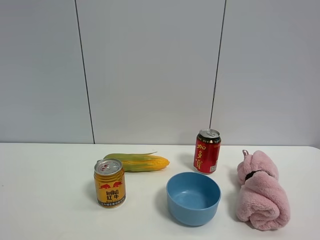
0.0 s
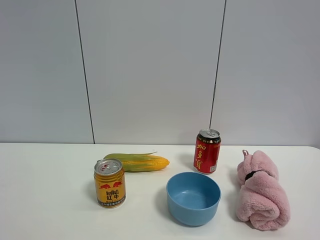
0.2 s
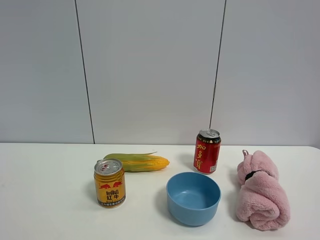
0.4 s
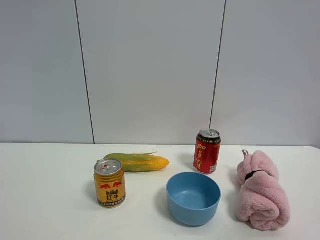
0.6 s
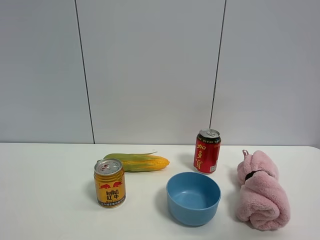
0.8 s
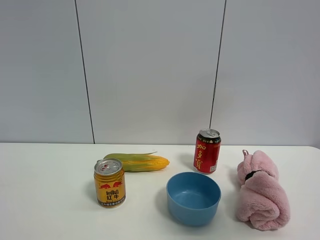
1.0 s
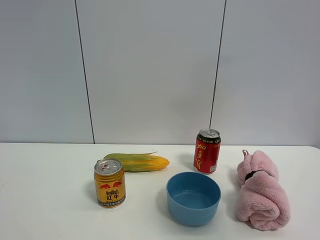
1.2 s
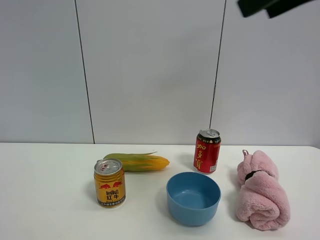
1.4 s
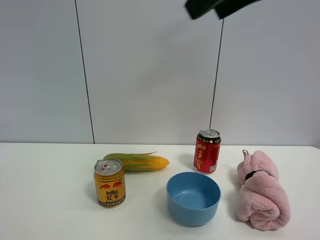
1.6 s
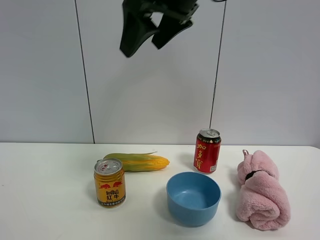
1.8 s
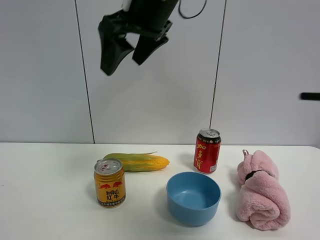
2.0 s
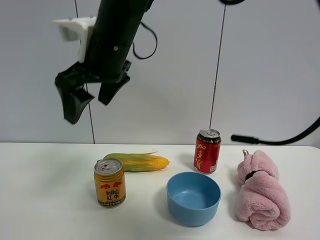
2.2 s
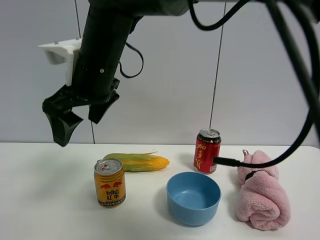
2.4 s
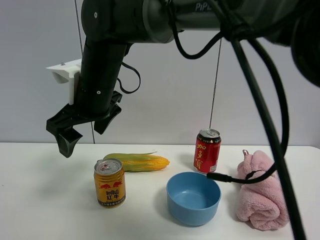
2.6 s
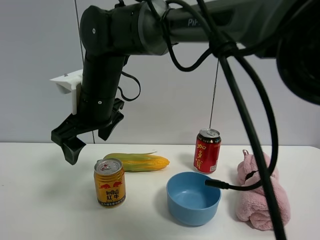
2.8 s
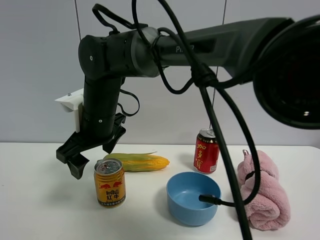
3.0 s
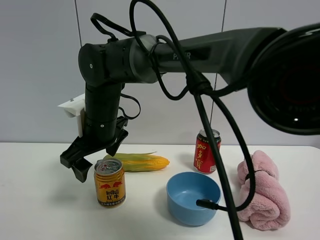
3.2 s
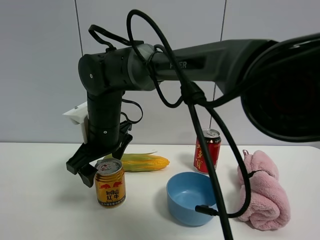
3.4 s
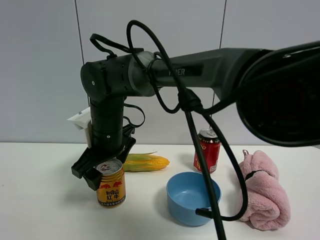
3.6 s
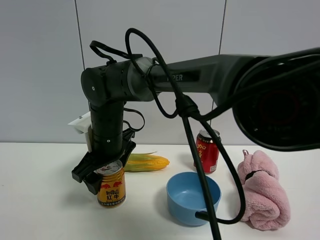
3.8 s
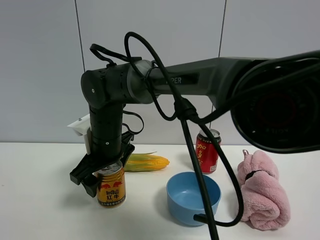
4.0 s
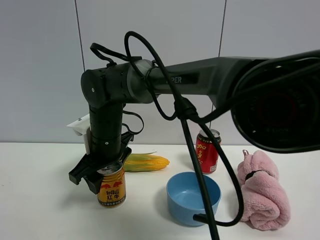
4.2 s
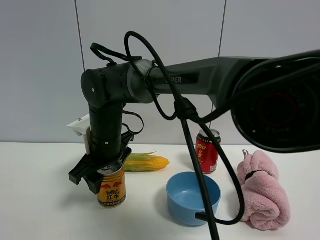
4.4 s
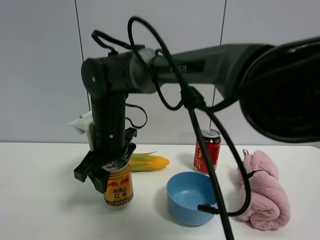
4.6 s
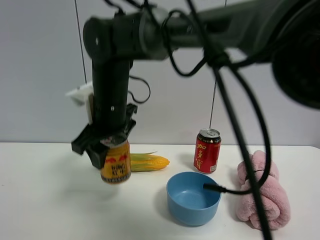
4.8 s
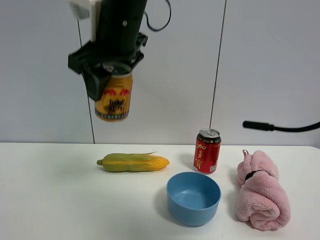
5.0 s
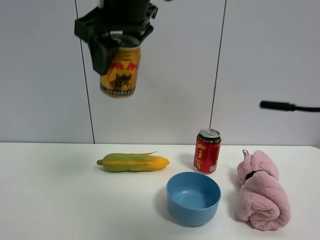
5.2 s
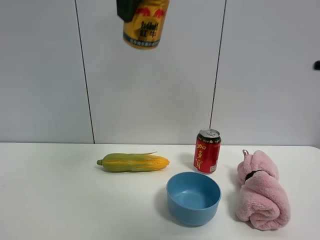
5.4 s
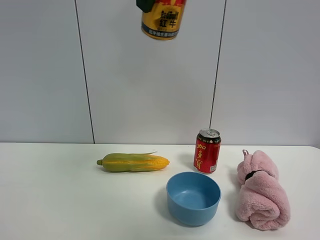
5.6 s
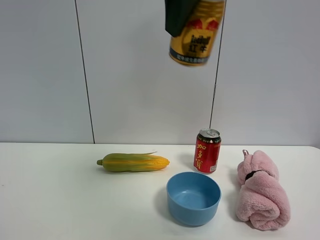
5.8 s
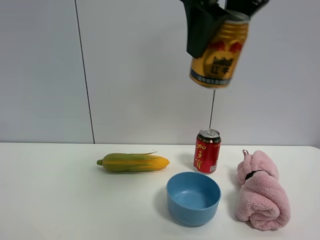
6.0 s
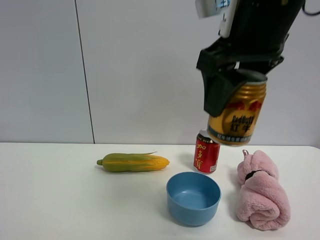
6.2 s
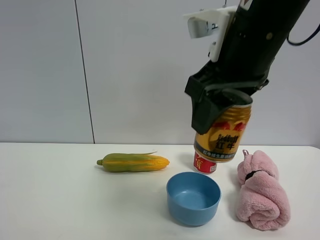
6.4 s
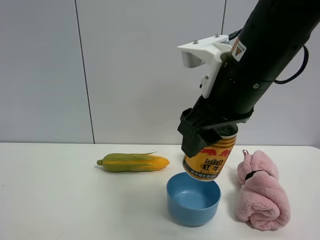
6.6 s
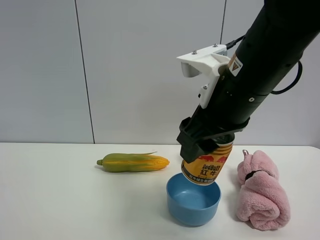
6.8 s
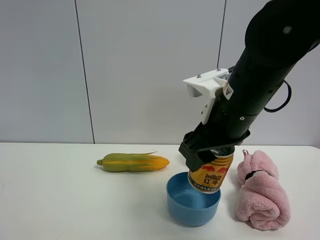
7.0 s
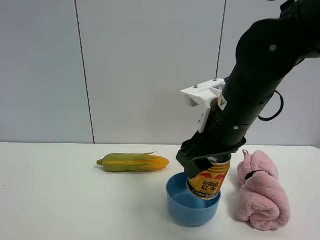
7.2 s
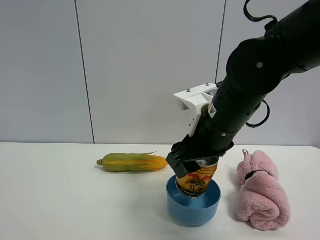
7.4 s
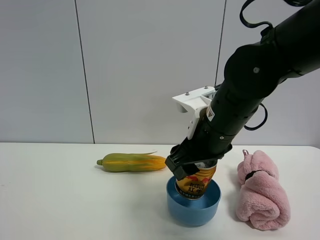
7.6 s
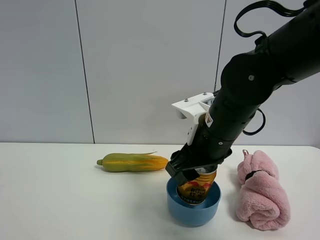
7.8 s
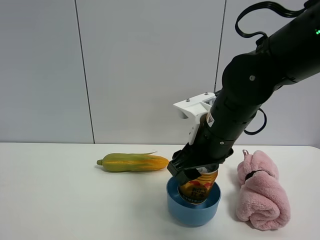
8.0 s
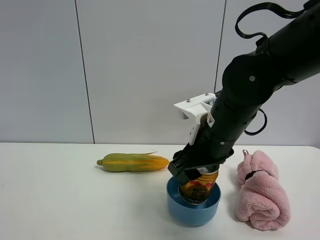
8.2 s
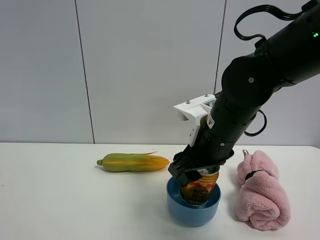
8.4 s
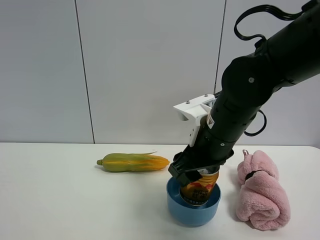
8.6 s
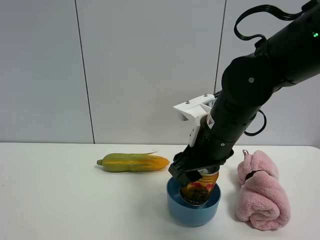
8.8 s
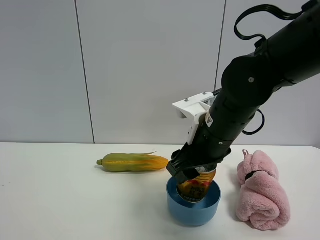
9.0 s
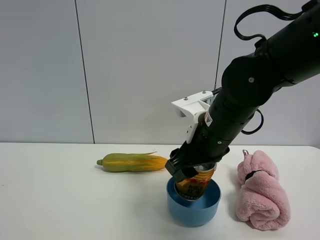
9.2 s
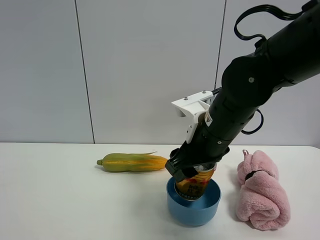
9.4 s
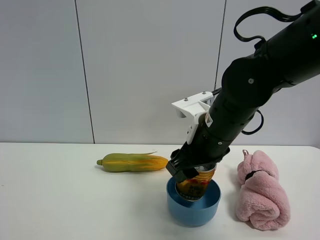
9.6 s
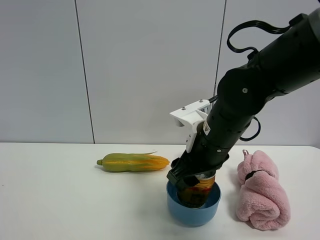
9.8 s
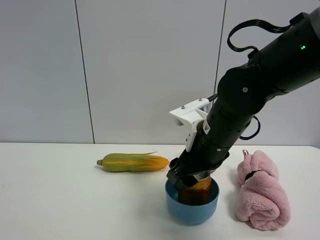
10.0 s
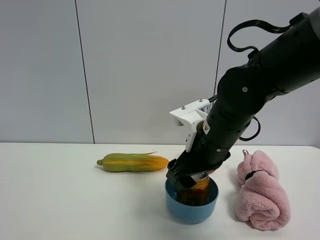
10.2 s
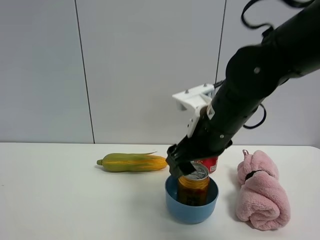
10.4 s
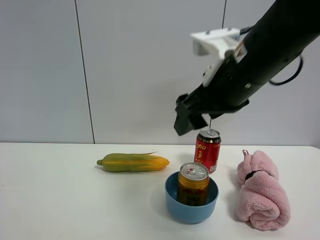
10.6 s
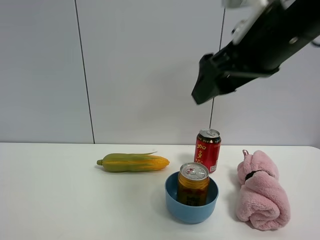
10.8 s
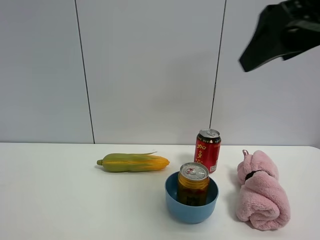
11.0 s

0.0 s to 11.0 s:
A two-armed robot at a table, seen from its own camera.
Task of the whole recording: the gripper move the object.
Step, 0.0 to 4.2 s: Grasp the red bull with the right gripper.
0.0 to 1.6 s: The right gripper is displaced forward, to the left and upward by some 35 cm.
1.6 to 3.2 s: The right gripper moves downward and to the left, roughly 35 cm.
3.2 to 4.8 s: The right gripper is displaced upward by roughly 5 cm, and closes.
4.8 to 6.2 s: The right gripper travels to the right, upward and backward by about 25 cm.
6.2 to 7.8 s: The right gripper moves downward, about 15 cm.
7.8 to 9.4 s: The two grippers keep their place.
9.4 to 11.0 s: The right gripper shifts some 25 cm upward, to the right and backward, and opens up.

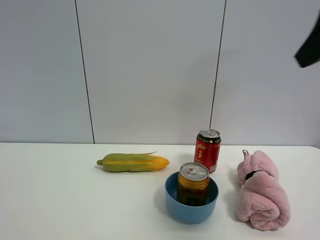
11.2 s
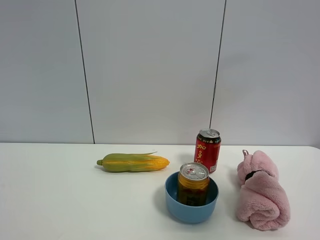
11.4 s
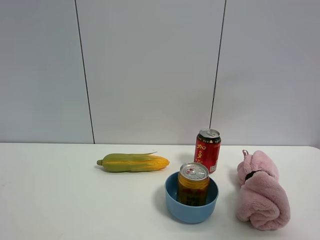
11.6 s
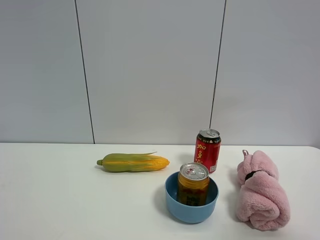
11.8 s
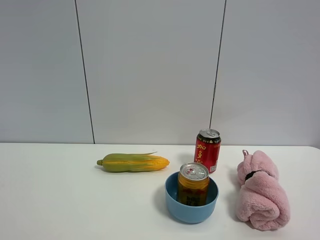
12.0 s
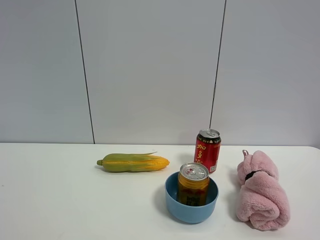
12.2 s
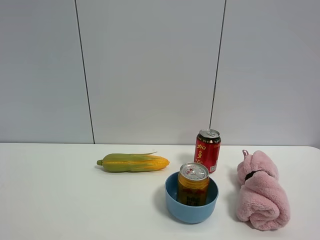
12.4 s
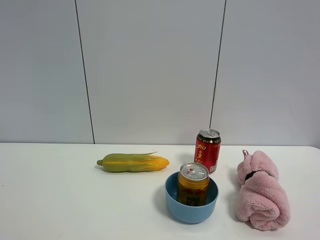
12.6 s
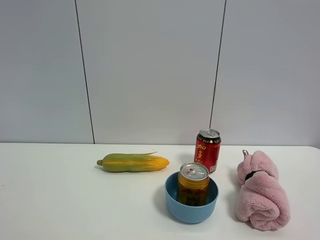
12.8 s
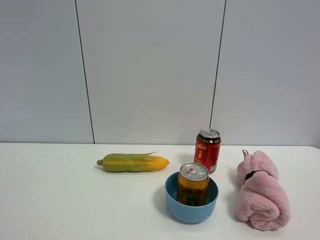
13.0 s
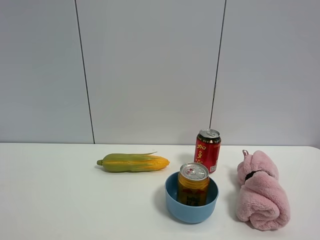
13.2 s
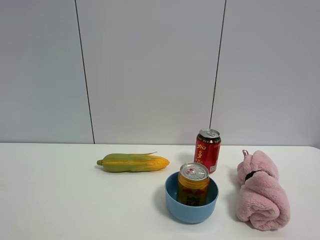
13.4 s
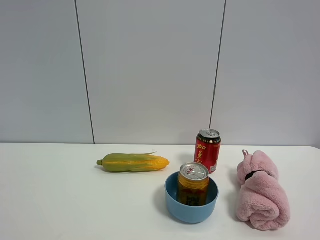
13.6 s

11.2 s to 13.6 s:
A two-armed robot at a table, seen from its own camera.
Task of the whole recording: the gripper move the object.
11.2 to 12.4 s: The right gripper travels backward and downward by some 20 cm.
12.4 to 13.6 s: The two grippers keep their place.

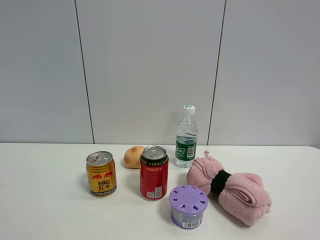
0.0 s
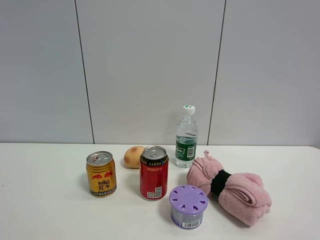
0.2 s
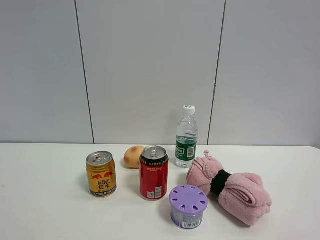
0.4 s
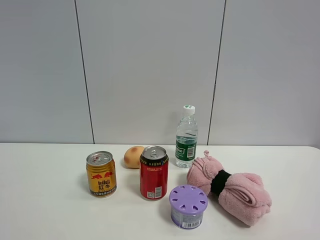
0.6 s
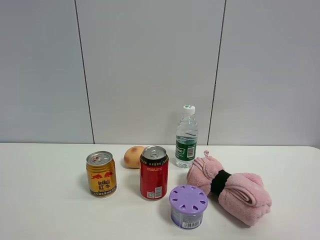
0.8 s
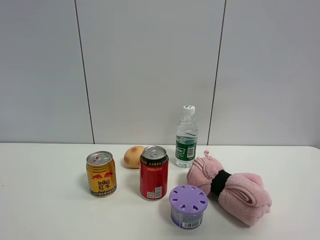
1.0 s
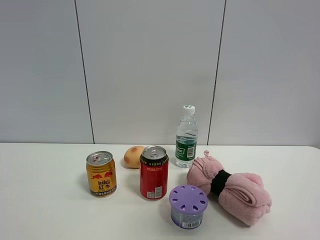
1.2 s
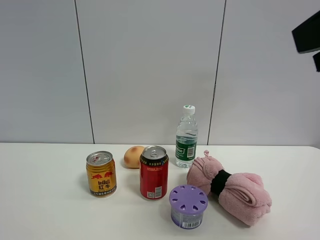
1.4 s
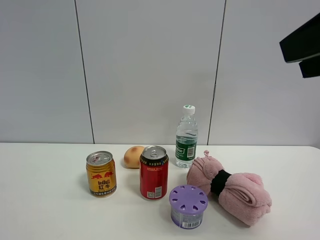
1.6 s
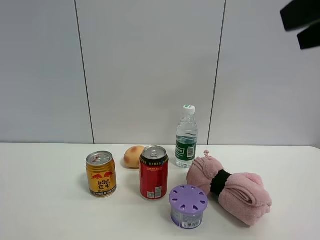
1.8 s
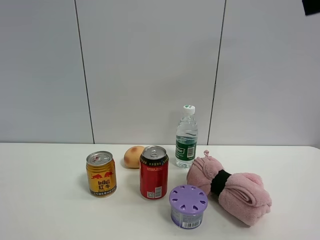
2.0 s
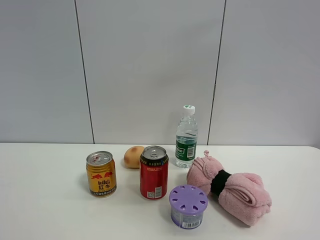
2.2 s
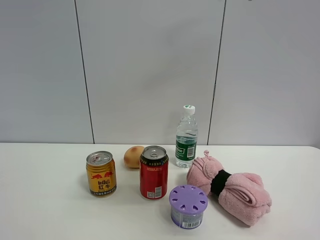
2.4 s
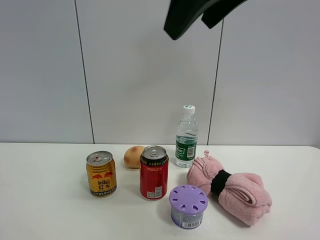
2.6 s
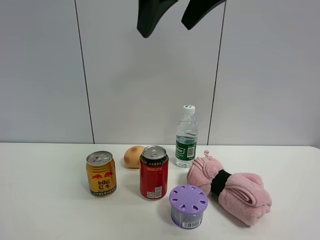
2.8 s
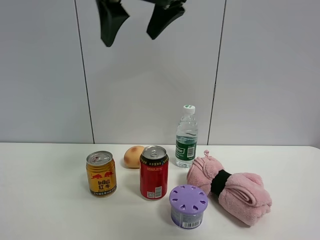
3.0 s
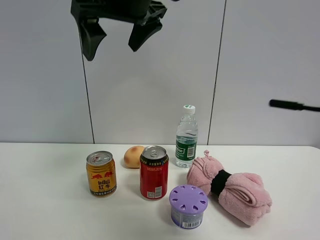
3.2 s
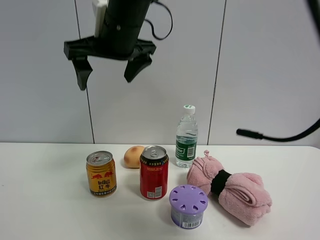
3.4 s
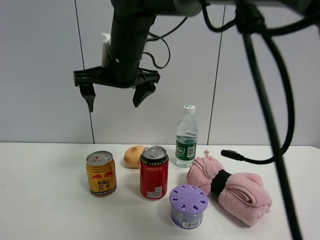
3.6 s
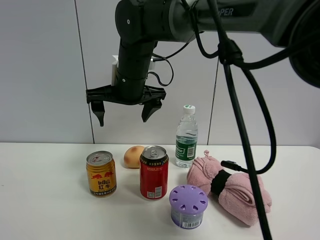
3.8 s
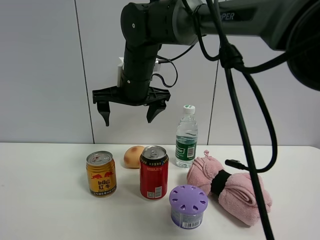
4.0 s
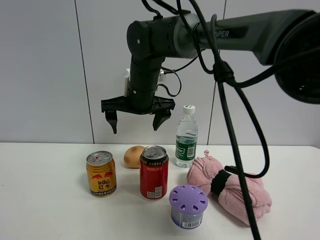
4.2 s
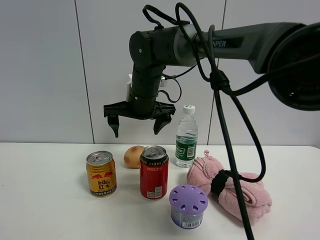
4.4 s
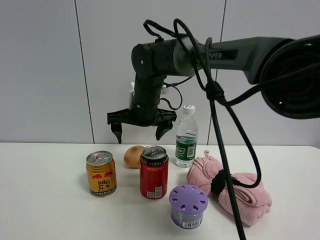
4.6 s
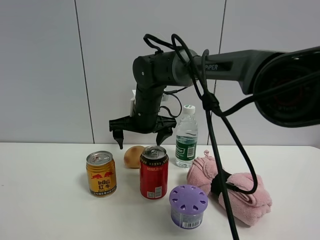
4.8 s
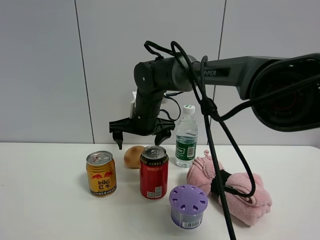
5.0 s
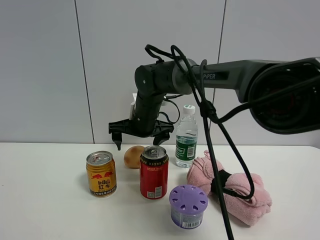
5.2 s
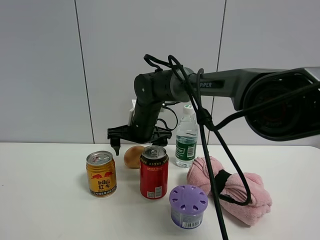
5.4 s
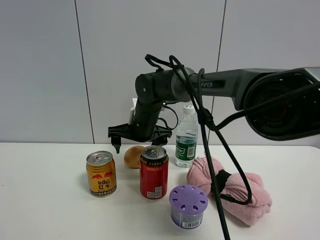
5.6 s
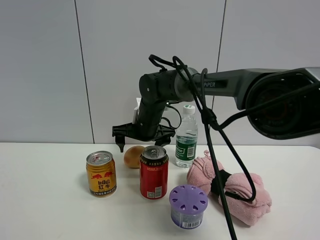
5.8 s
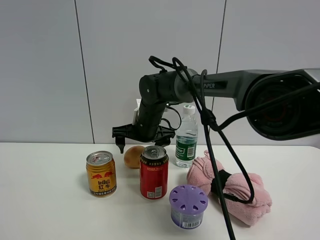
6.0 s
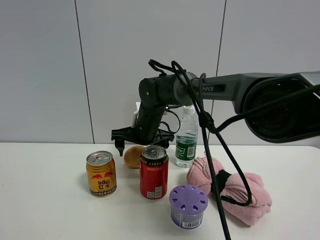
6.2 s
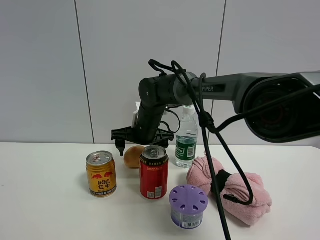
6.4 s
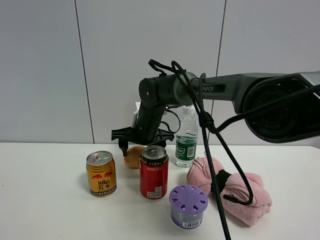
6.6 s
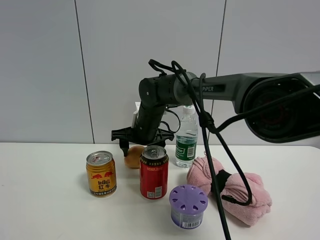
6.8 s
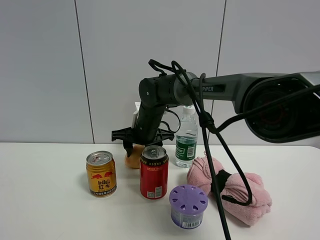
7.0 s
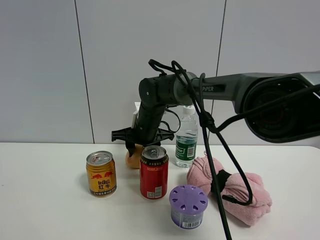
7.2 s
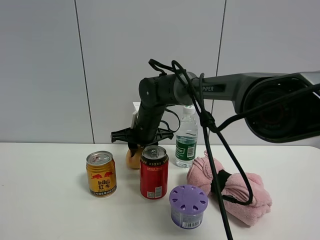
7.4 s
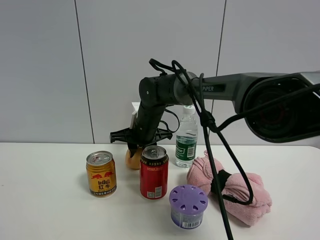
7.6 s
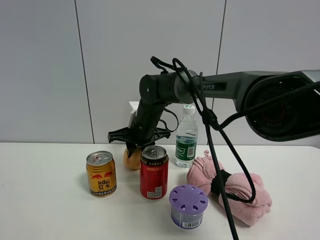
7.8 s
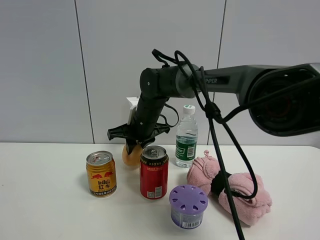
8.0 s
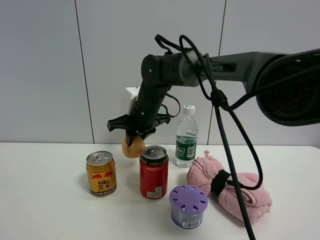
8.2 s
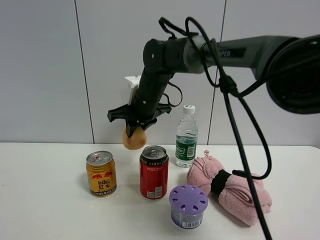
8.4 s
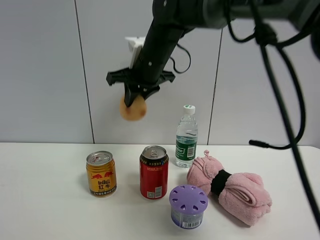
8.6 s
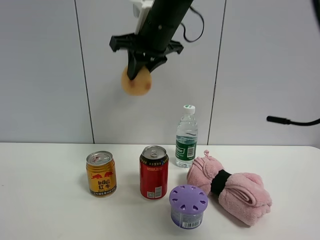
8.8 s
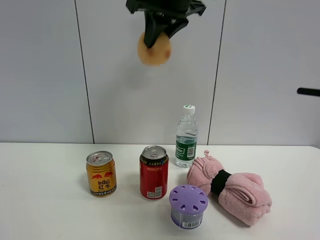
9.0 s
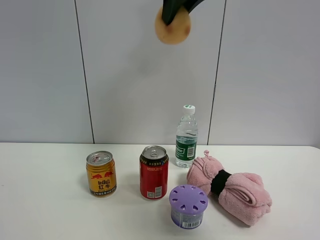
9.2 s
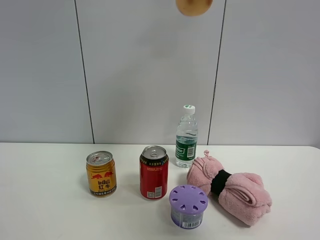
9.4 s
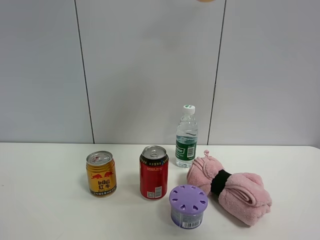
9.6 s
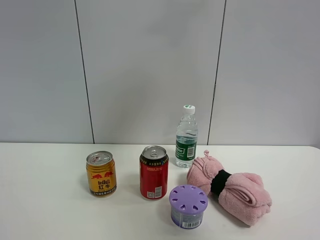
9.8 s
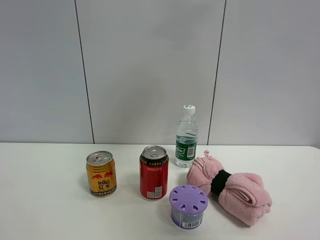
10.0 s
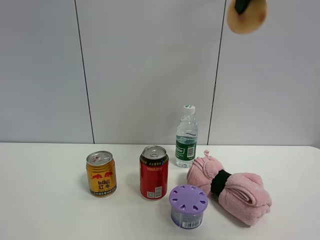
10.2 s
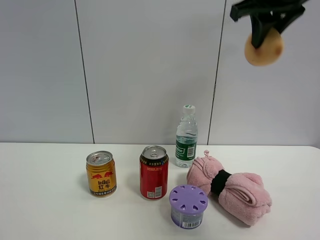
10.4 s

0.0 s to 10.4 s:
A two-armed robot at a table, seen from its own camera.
Task of the whole recording: the gripper move the object.
Step, 0.0 to 7.6 s: Grasp the egg yolk pastry with the right gripper.
0.0 to 1.4 s: The right gripper heads forward and upward, covering about 15 cm.
1.4 to 3.0 s: The right gripper moves to the left and forward, approximately 30 cm.
3.0 to 4.4 s: The right gripper shifts some 25 cm downward and forward.
4.4 to 6.0 s: The right gripper travels downward by roughly 5 cm.
6.0 to 7.4 s: The right gripper closes its fingers.
7.4 to 9.0 s: The right gripper shifts some 30 cm upward.
9.0 to 10.4 s: The right gripper travels to the right by approximately 15 cm.
